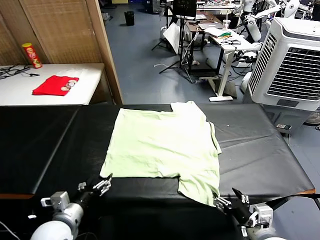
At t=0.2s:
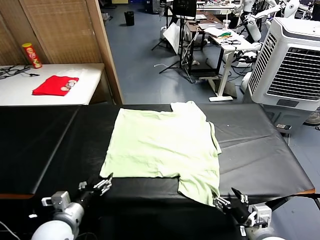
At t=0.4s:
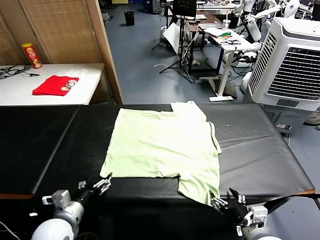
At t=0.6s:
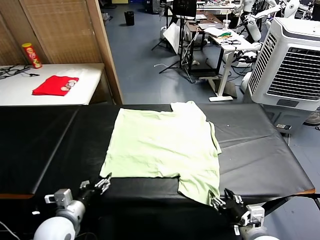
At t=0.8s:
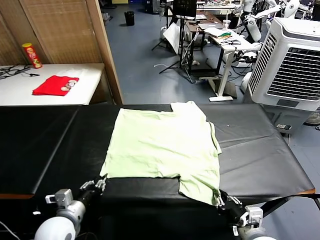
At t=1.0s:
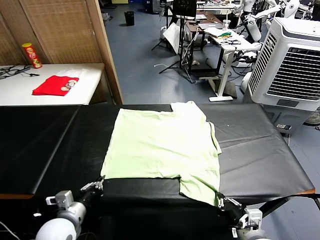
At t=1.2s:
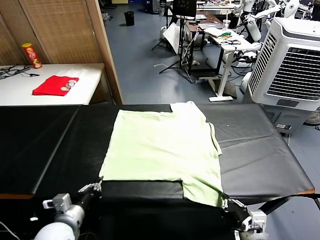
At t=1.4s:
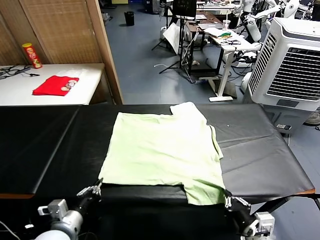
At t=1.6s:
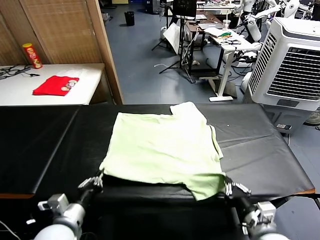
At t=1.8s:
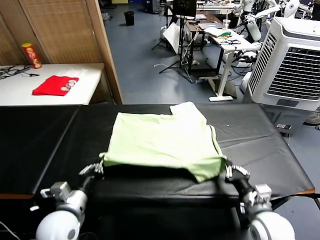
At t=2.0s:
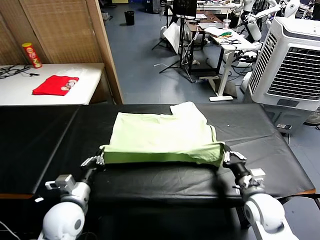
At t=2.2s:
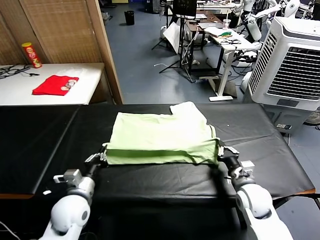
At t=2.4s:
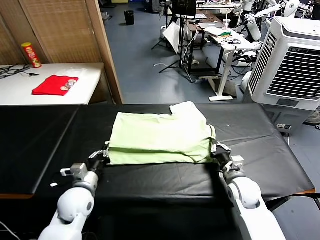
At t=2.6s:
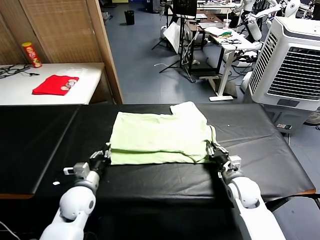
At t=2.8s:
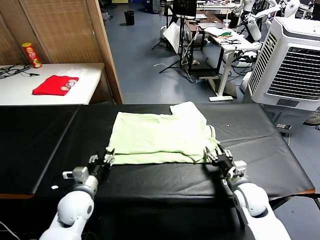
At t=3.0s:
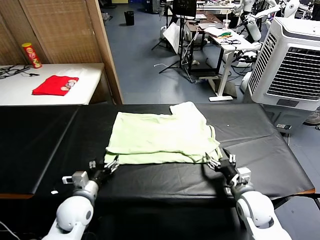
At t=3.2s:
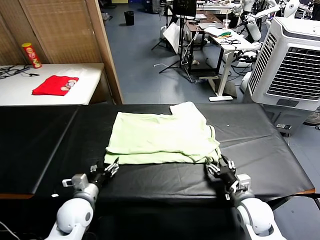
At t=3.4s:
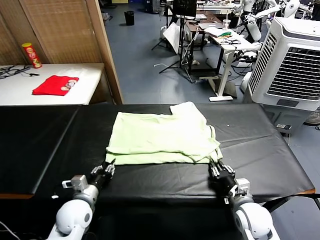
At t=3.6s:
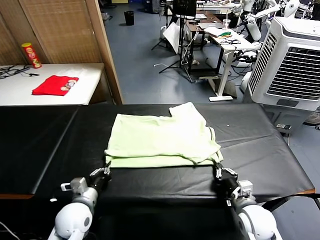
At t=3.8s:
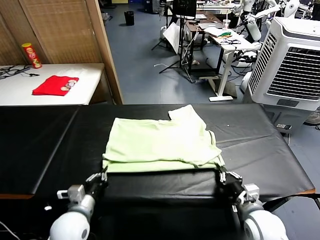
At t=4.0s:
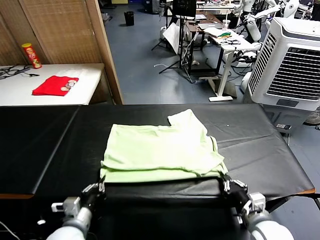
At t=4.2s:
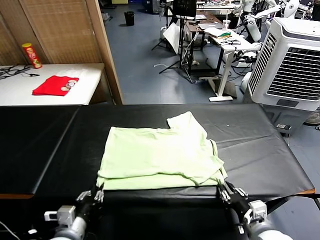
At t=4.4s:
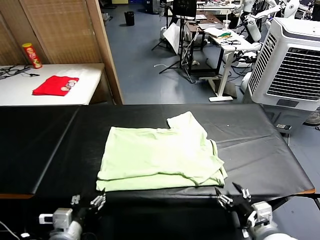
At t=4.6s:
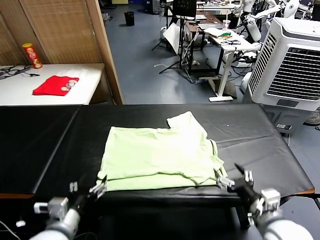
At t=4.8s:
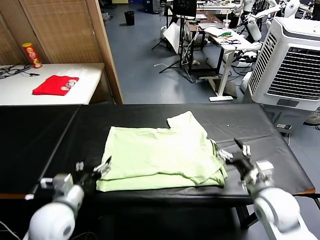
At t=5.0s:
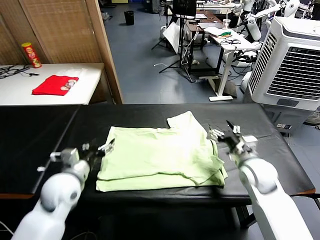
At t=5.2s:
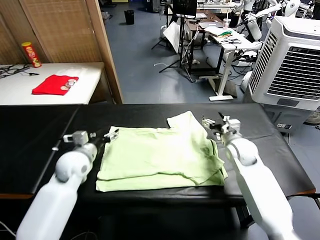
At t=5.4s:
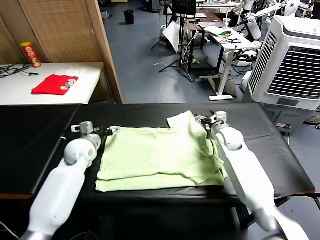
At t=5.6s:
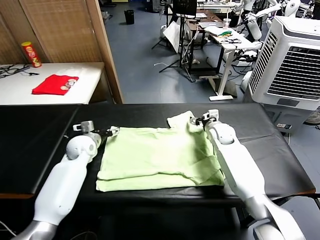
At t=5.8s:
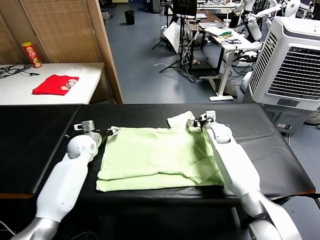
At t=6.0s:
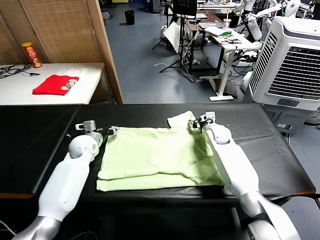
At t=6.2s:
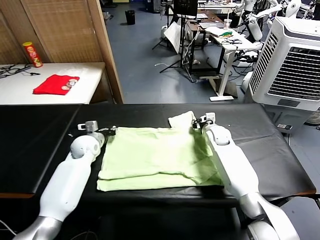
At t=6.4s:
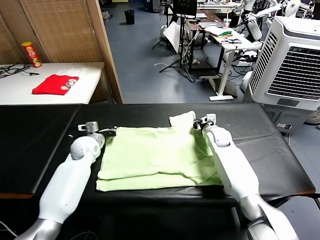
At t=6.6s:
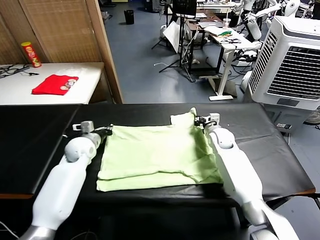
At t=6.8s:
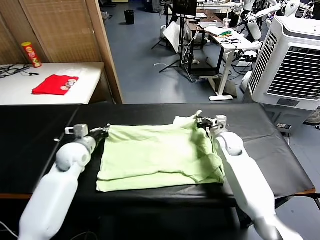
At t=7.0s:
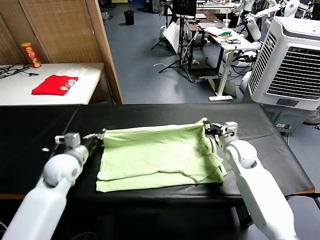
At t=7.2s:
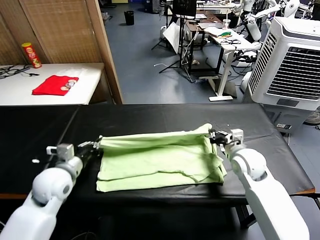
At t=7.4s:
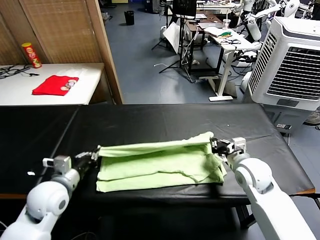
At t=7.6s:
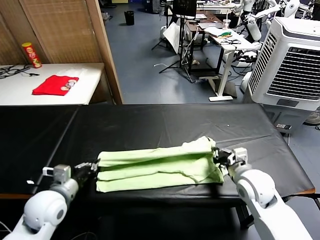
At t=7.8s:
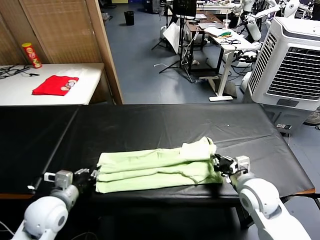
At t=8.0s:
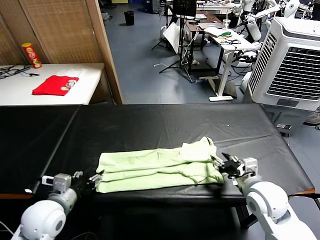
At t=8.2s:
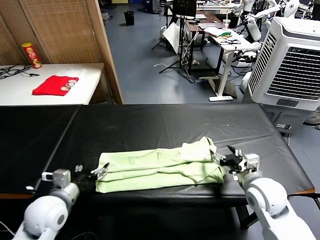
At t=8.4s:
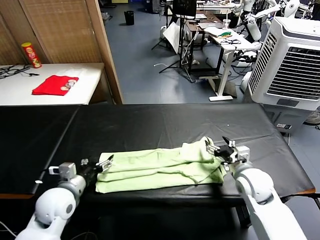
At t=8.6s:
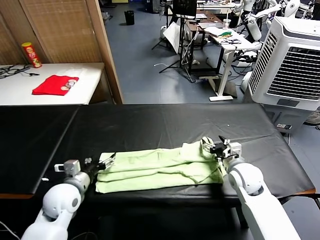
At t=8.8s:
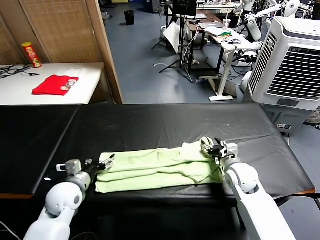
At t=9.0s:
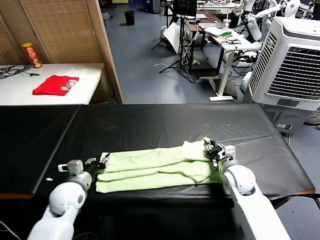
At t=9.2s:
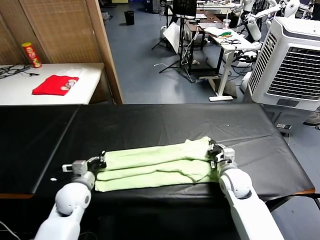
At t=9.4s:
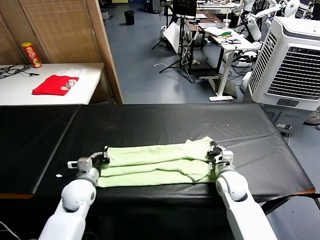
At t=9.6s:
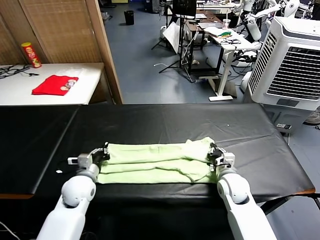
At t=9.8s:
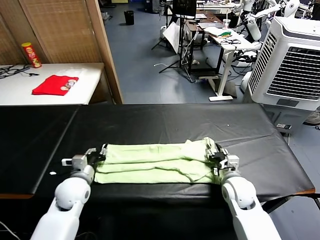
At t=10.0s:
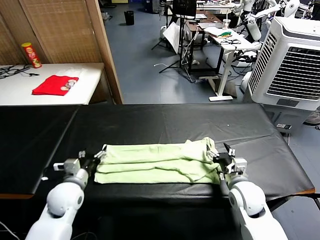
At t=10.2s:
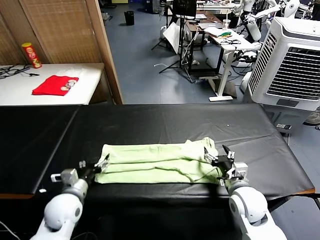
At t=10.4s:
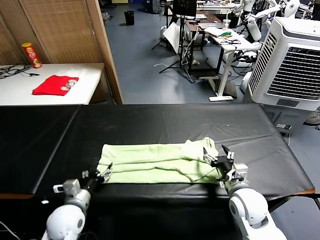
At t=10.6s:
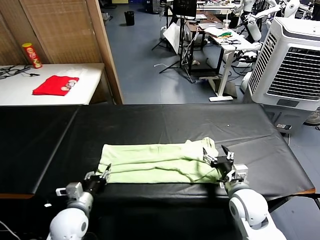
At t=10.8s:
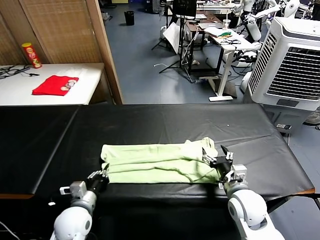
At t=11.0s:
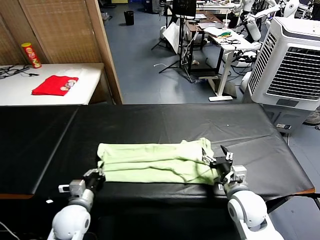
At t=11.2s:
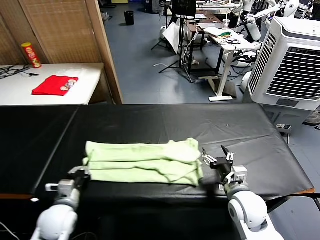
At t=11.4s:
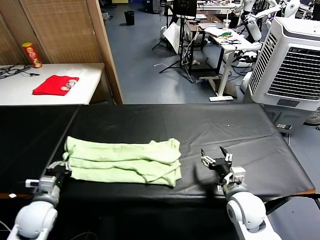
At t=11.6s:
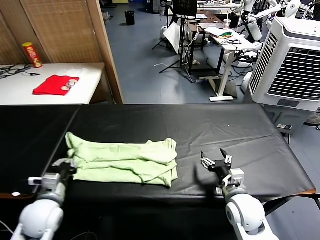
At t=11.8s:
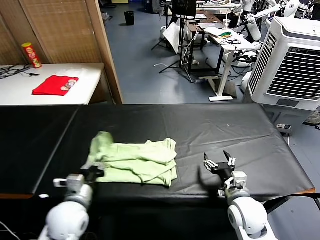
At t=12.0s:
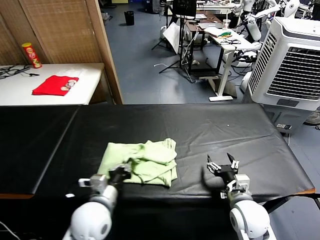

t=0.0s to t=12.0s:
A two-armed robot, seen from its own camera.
Task of the whole recording: fold and organize the clothes.
Step, t=0.0s to t=1.0s: use both grippers simultaneously to clamp the lower edge of the clothing fabric.
Step, t=1.2s to t=2.8s: use both grippers to drag the lower edge of the fabric forward and fold it over the upper edge.
Step, t=3.0s to t=4.4s: Drag the clothes downward with both gripper.
Step, t=4.6s to t=6.2s: use both grippers simultaneously to clamp the upper edge of the clothing fabric.
Step, t=6.4s to t=8.0s: use both grippers to drag the upper edge of the fabric backward and fold it over the lower edge.
Step, t=8.2s to t=10.8s: use the left gripper to clamp the left edge of the fabric.
t=1.6s to t=3.0s: The right gripper goes forward and returns, approximately 10 cm each way, and opens its fingers; the left gripper is displaced forward and downward by about 10 cm, and opens its fingers.
t=3.0s to t=4.4s: The left gripper is displaced backward and upward by about 15 cm, and closes and opens again, while the right gripper is displaced upward and backward by about 15 cm, and opens up.
t=4.4s to t=6.0s: The grippers both shift forward by some 35 cm. The right gripper closes up. The left gripper closes up.
t=6.0s to t=7.6s: The two grippers go roughly 25 cm backward. The left gripper closes.
t=7.6s to t=9.0s: Both grippers travel together downward and forward, approximately 10 cm. The right gripper opens, then closes again, while the left gripper opens and closes again.
t=9.0s to t=10.4s: The grippers both shift backward by roughly 10 cm. The left gripper opens up. The right gripper opens up.
t=10.4s to t=12.0s: The left gripper goes approximately 10 cm to the right and upward, and closes up.

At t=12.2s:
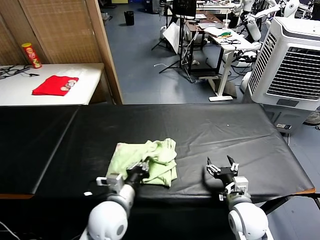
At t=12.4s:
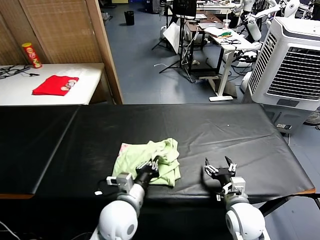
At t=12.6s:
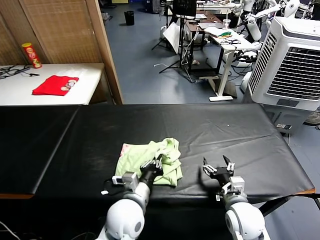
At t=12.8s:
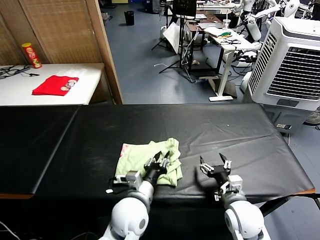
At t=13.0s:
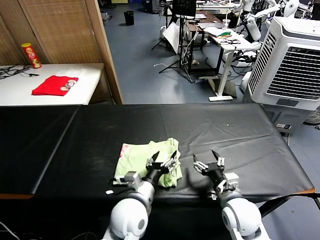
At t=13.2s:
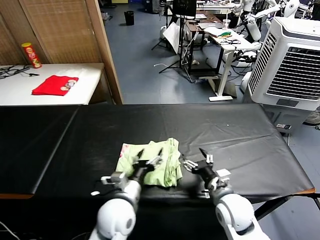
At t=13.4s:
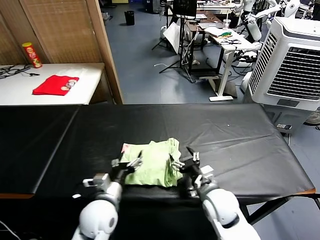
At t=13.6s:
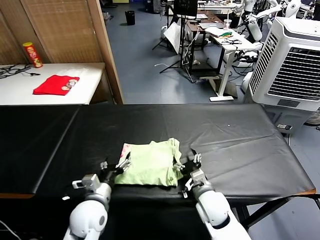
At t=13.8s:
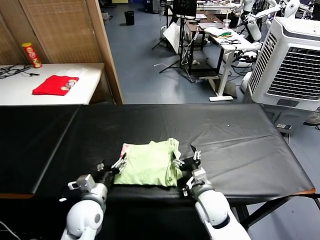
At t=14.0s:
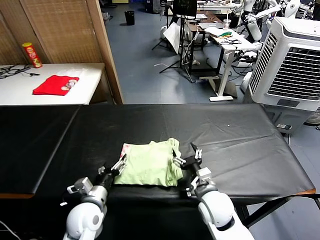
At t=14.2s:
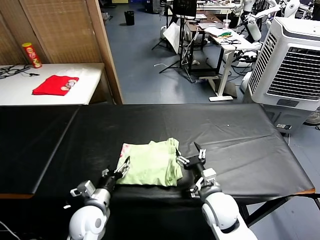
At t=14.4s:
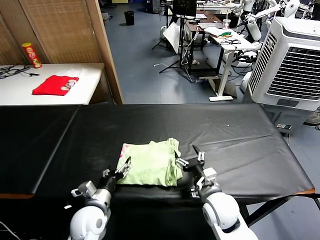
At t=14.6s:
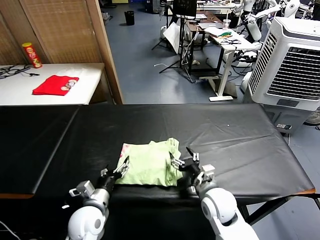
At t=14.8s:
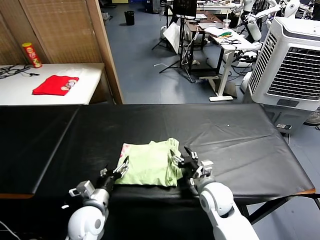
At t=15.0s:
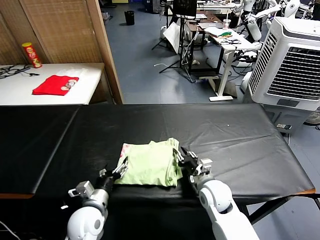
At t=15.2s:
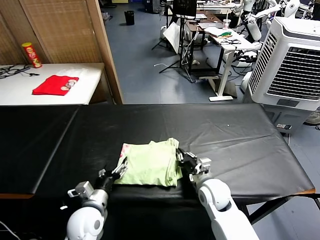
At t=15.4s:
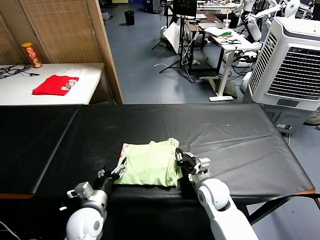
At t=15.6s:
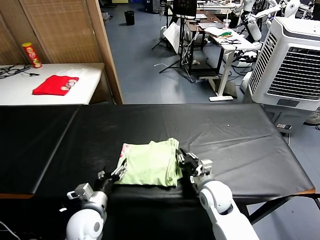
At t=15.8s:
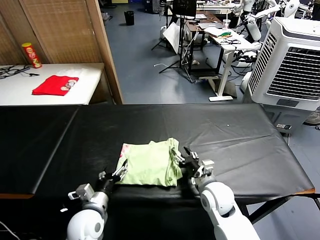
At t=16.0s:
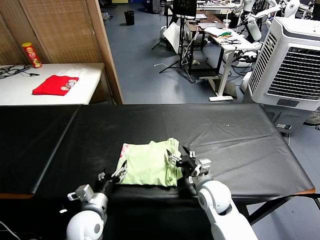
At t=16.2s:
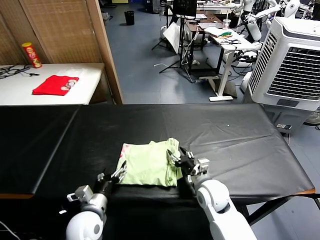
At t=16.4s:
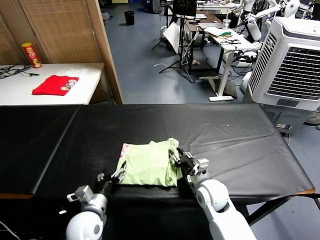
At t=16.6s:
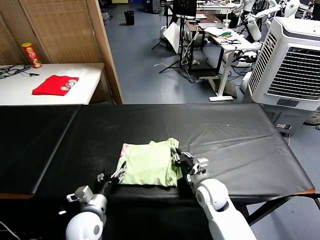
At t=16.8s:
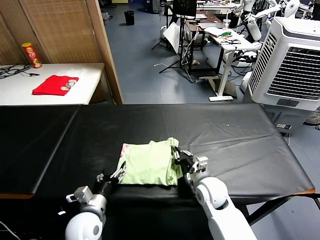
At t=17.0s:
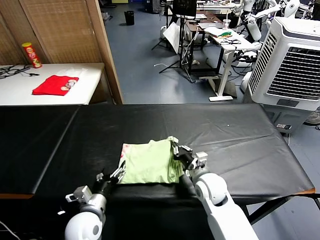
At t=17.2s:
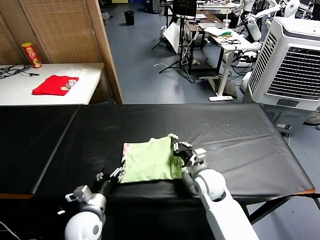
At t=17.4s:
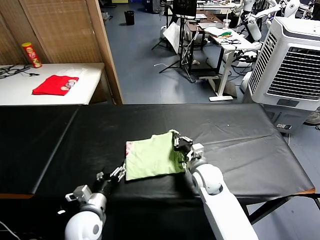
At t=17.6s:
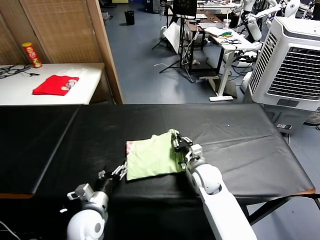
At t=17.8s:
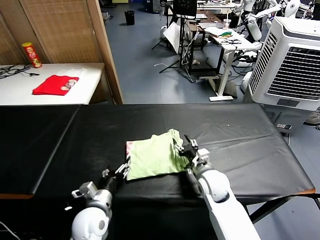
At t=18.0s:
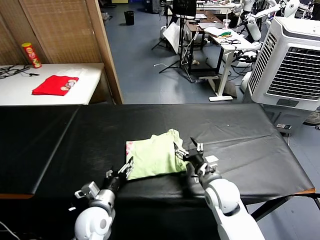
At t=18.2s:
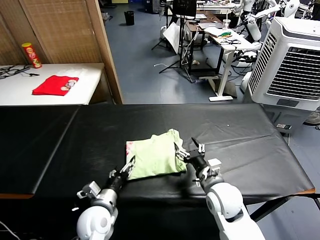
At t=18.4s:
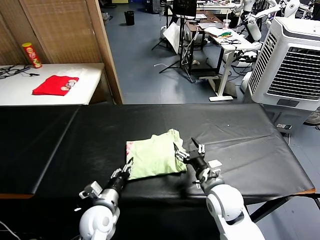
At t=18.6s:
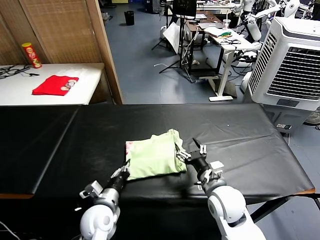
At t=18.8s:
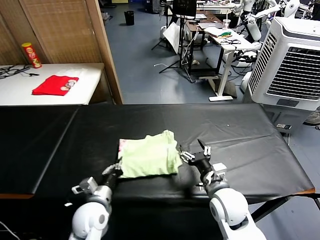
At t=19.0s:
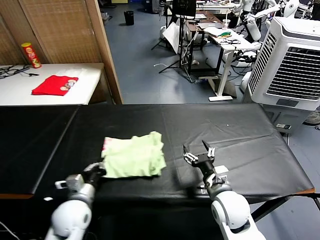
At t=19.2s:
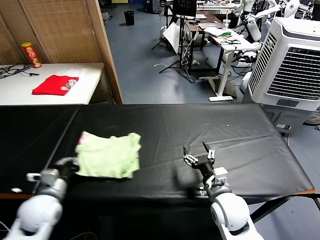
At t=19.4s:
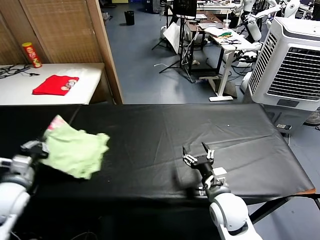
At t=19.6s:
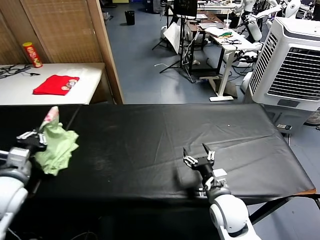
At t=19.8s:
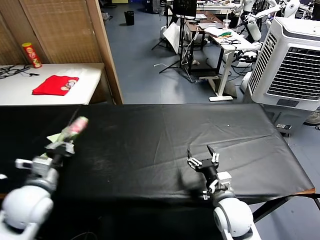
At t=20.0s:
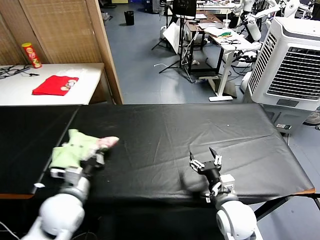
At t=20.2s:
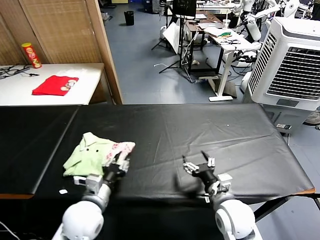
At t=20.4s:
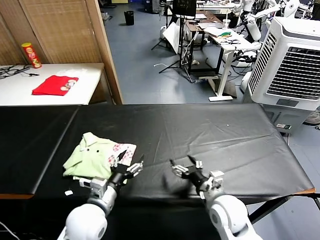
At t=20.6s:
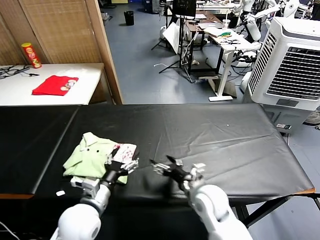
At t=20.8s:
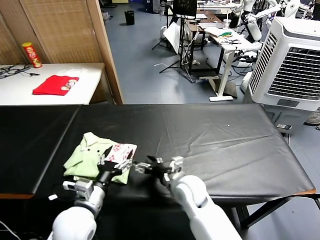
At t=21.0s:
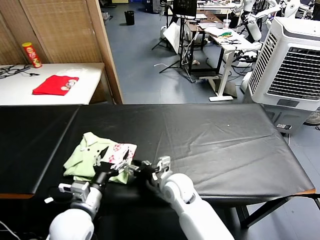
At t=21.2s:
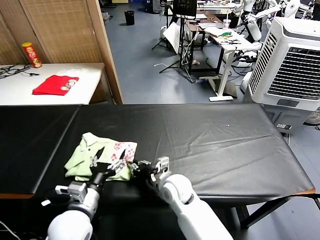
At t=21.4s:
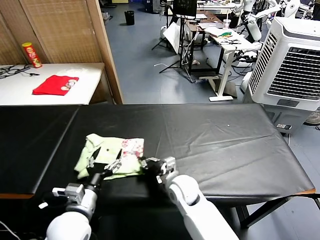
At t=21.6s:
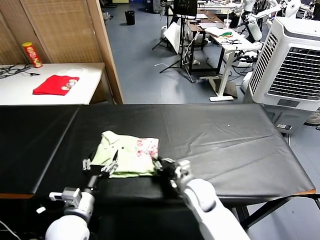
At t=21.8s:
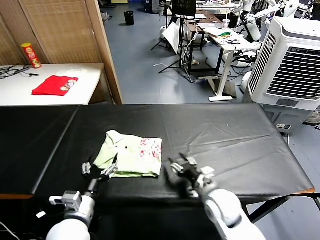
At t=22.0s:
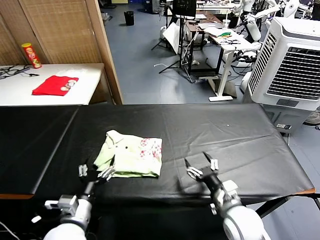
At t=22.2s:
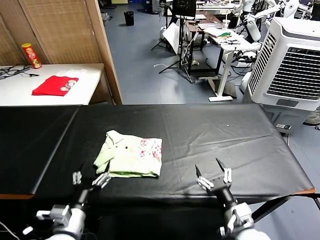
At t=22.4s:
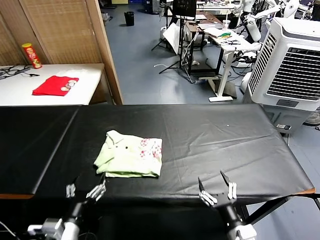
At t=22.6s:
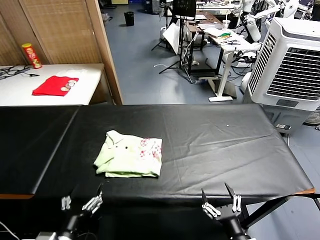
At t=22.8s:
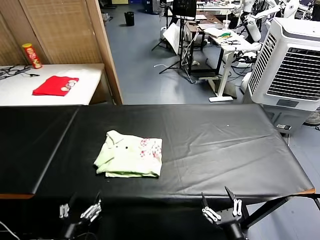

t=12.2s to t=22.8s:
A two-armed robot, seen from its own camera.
Task of the whole recording: fold and organize the clothes.
Step, t=13.2s to t=20.2s: Flip the folded clothes over with left gripper.
Step, t=20.4s to t=21.6s: Drag the clothes to the center of the table.
t=12.2s to t=13.8s: The left gripper is displaced to the left and downward by approximately 10 cm, and opens its fingers; the right gripper heads to the left, covering some 10 cm.
t=13.8s to t=15.2s: The right gripper ends up approximately 5 cm from where it was, and closes its fingers.
t=15.2s to t=16.8s: The right gripper opens, then closes again.
t=16.8s to t=18.2s: The right gripper ends up approximately 5 cm from where it was, and opens.
t=18.2s to t=19.8s: The left gripper heads upward and to the left, covering roughly 20 cm, and closes up.
t=19.8s to t=21.2s: The left gripper is displaced to the right and downward by about 15 cm, and opens up. Meanwhile the right gripper is displaced to the left and forward by about 20 cm, and closes its fingers.
t=21.2s to t=22.8s: The left gripper shifts approximately 15 cm backward. Meanwhile the right gripper shifts some 30 cm backward and to the right, and opens its fingers.
